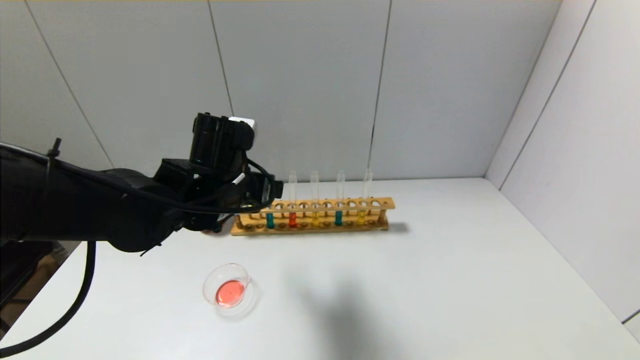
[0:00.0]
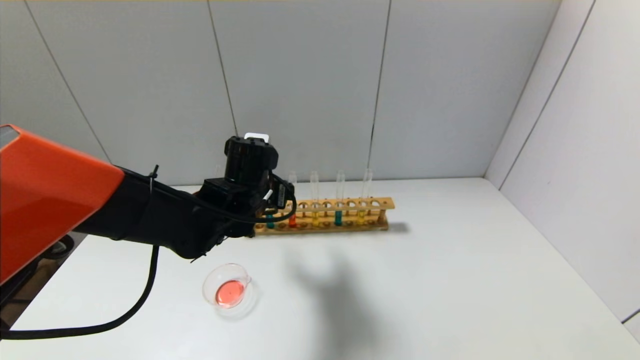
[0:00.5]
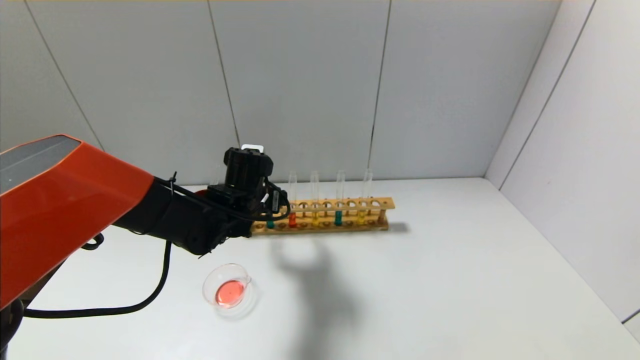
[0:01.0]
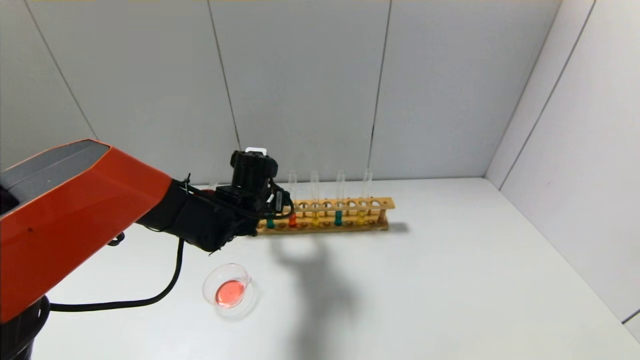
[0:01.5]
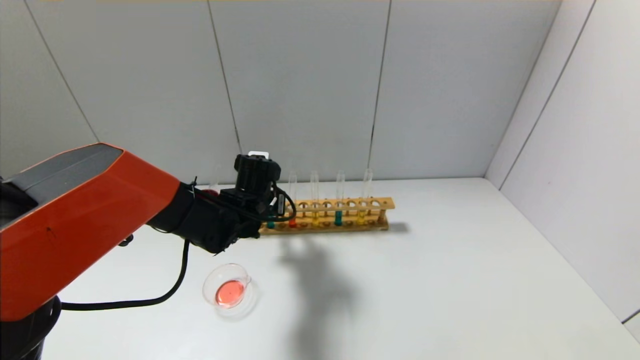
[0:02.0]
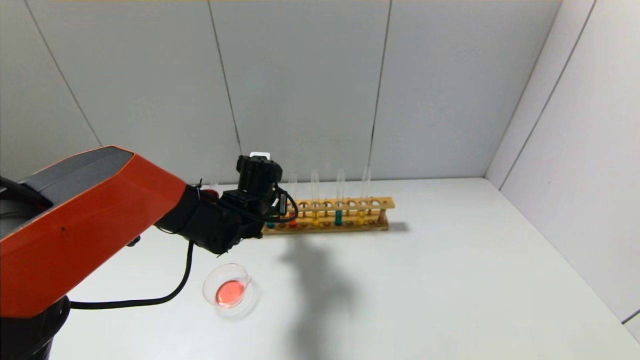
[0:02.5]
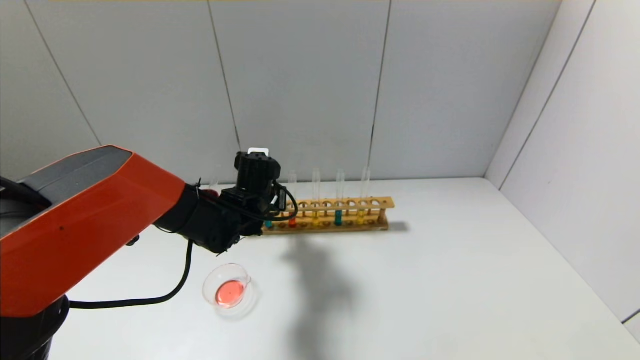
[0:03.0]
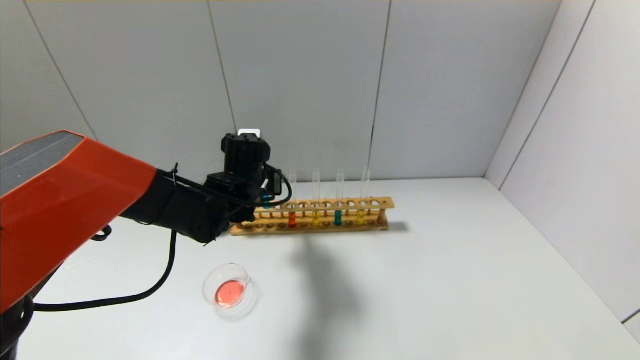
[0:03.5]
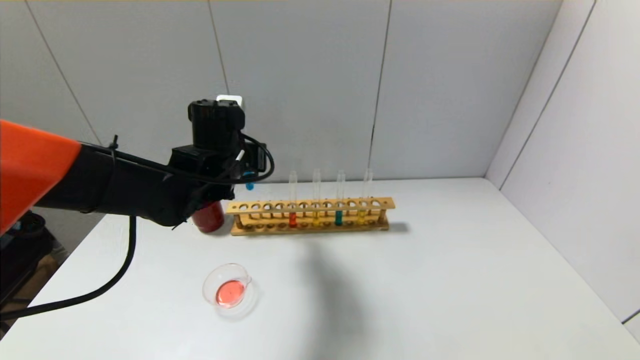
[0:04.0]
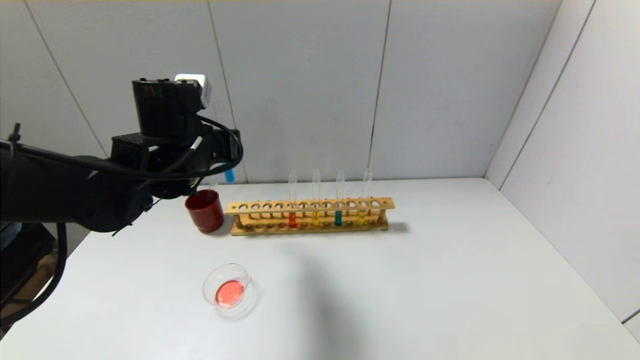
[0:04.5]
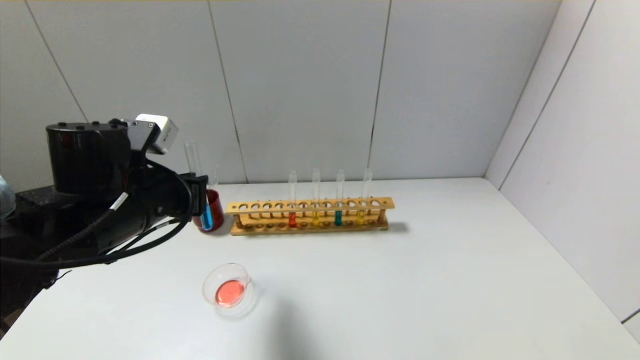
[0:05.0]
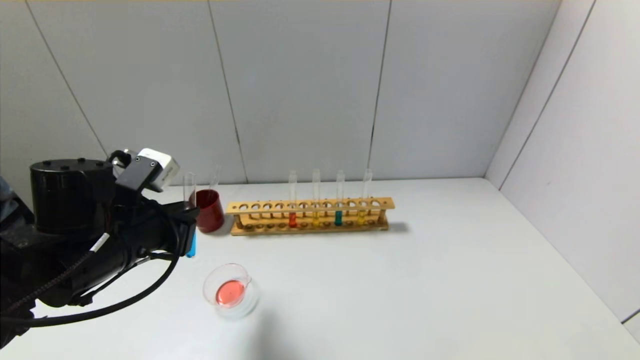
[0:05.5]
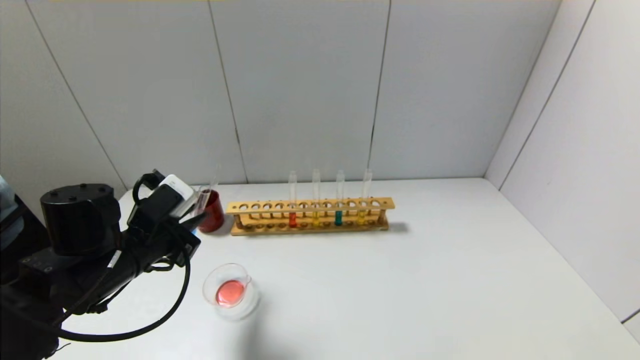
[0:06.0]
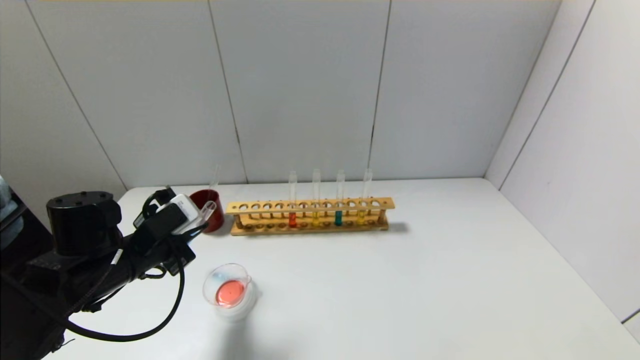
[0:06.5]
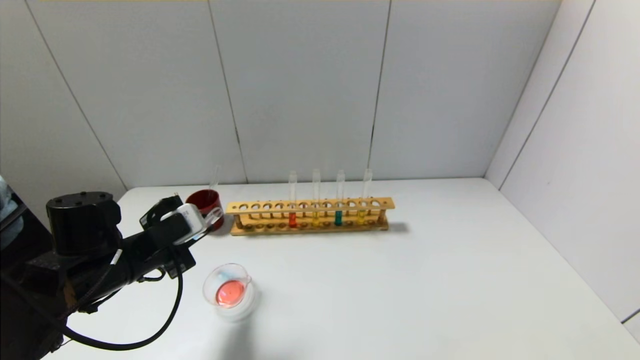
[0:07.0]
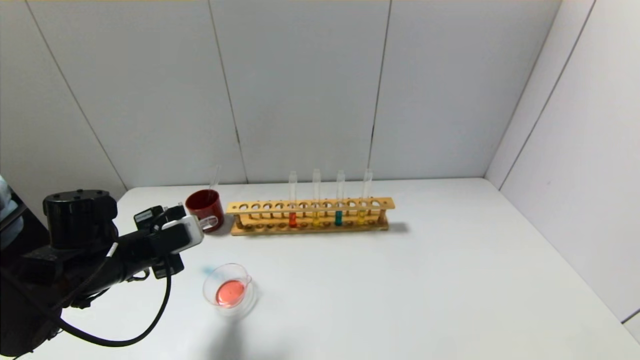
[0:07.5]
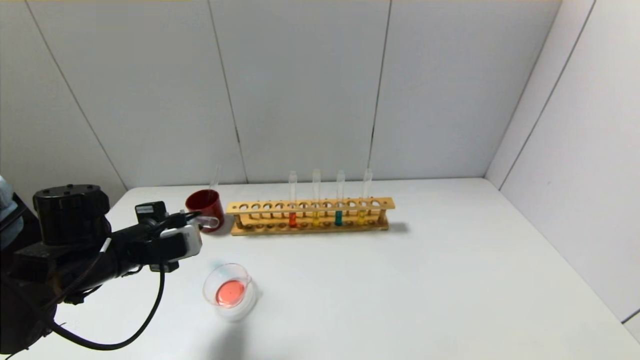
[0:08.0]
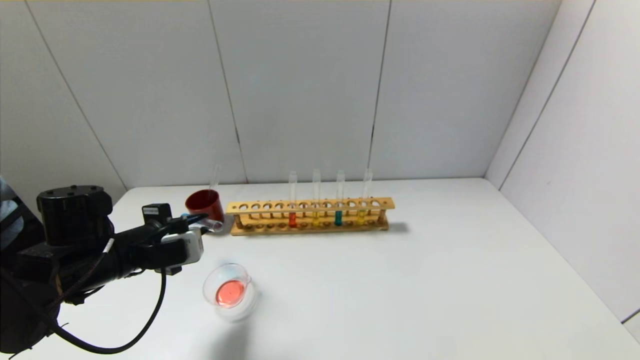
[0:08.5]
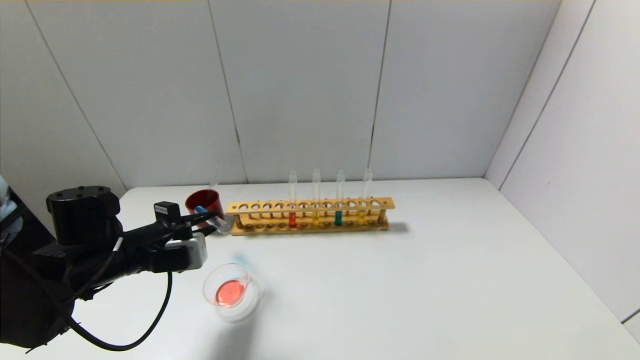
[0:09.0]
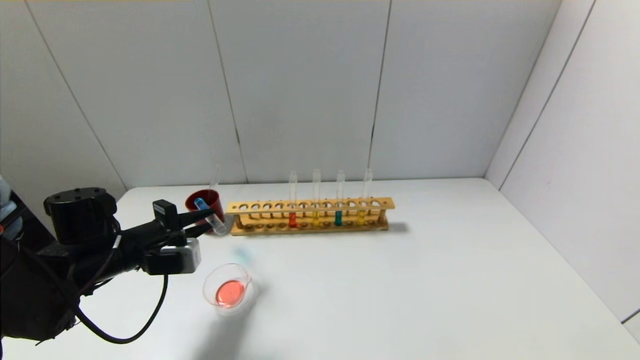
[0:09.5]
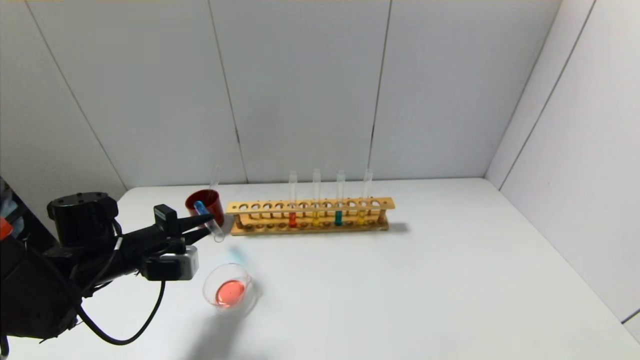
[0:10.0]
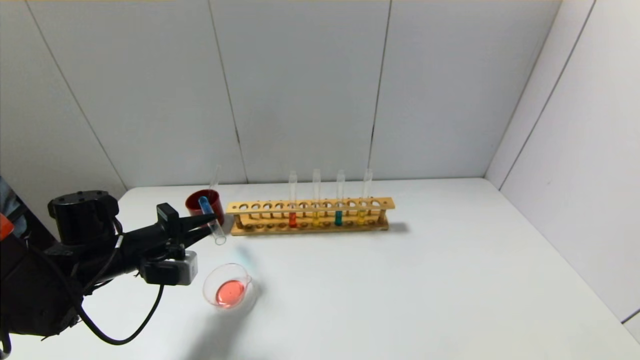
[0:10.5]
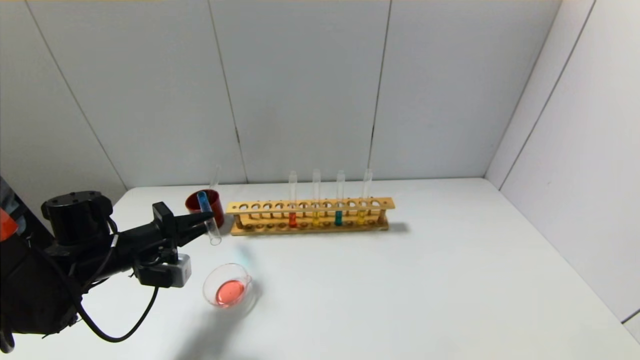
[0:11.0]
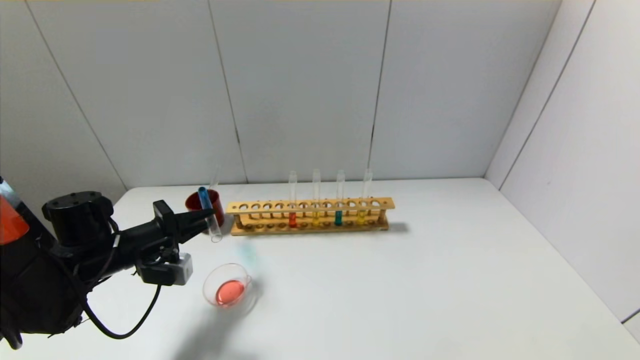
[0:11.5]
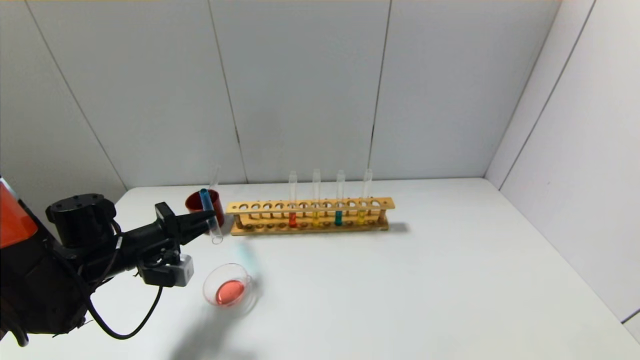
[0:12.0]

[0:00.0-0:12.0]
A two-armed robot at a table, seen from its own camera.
Step, 0:00.0 to 0:02.0: Grasp the blue reagent with the left gripper.
0:00.0 to 0:02.0: The left gripper is displaced downward and forward by roughly 10 cm, and closes its fingers.
0:02.0 to 0:04.0: The left gripper travels upward by roughly 10 cm.
0:04.0 to 0:06.0: The left gripper travels backward, to the left and downward by roughly 15 cm.
0:10.0 to 0:12.0: The grippers make only small movements.

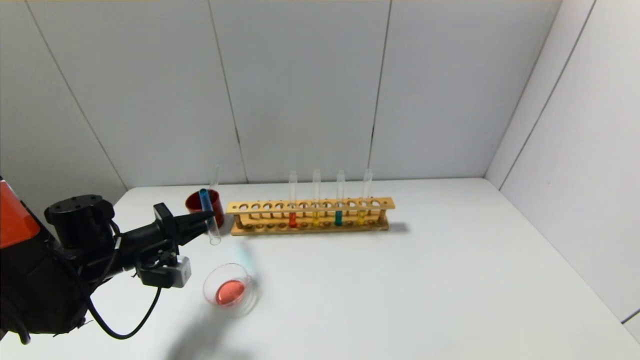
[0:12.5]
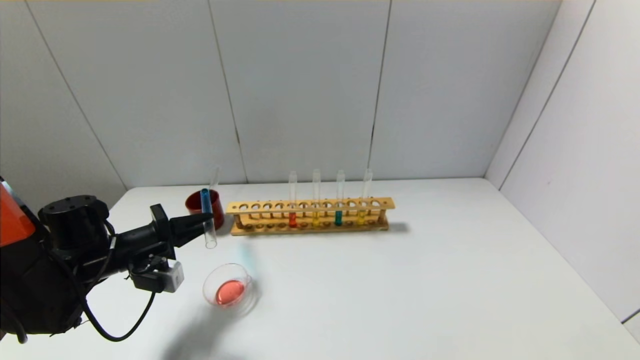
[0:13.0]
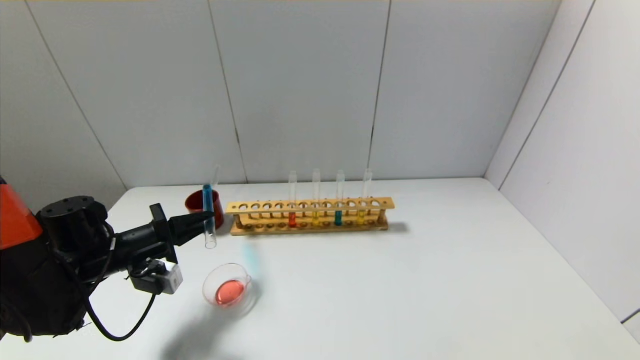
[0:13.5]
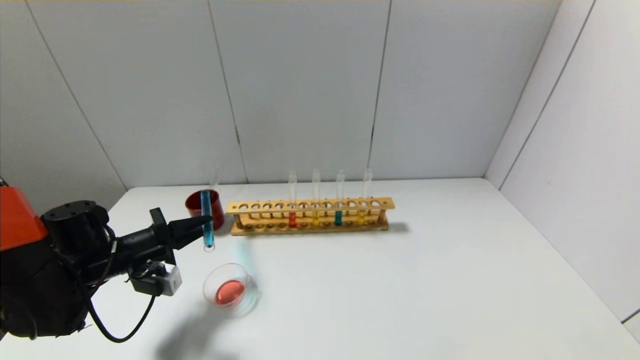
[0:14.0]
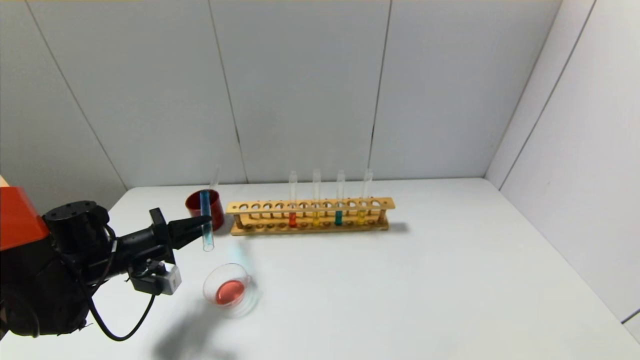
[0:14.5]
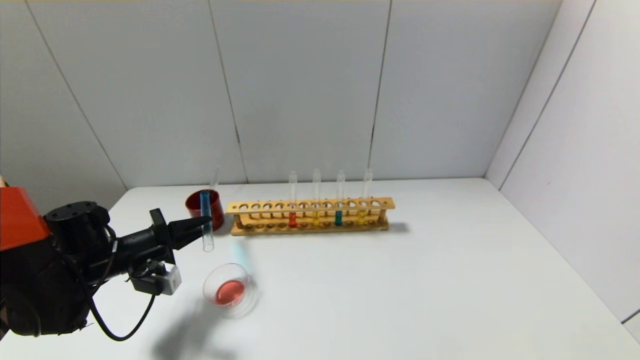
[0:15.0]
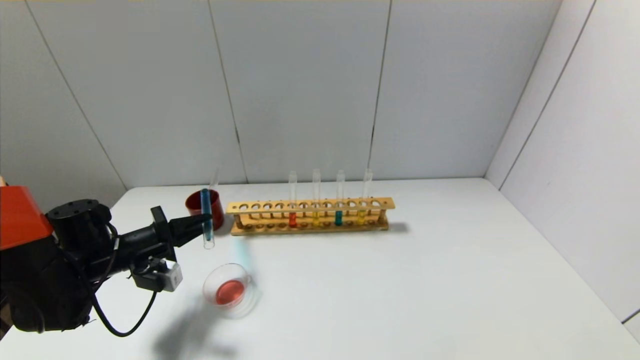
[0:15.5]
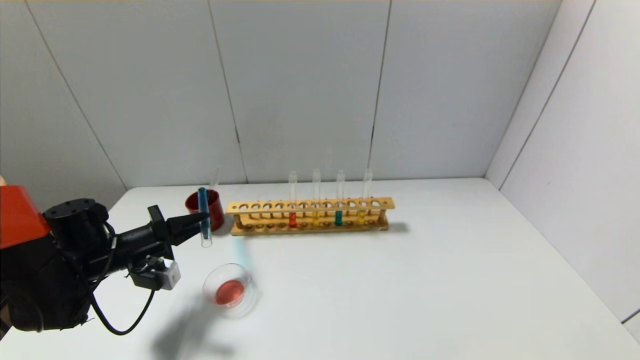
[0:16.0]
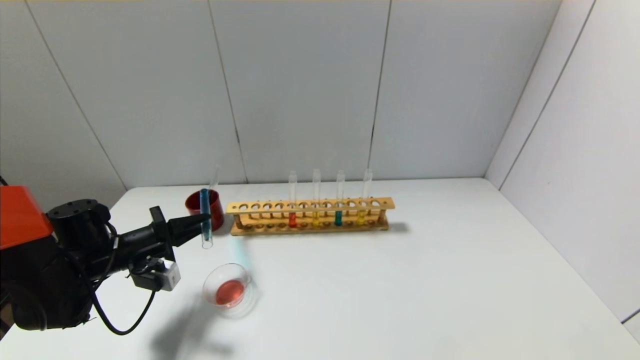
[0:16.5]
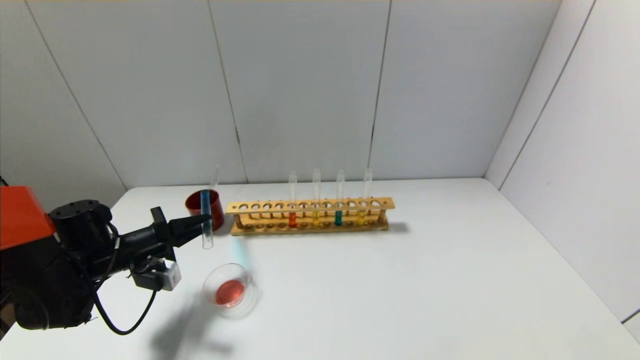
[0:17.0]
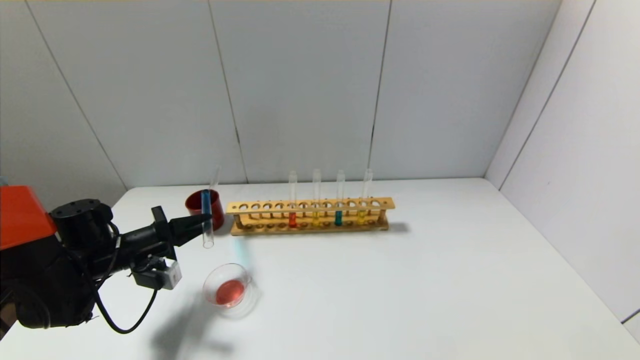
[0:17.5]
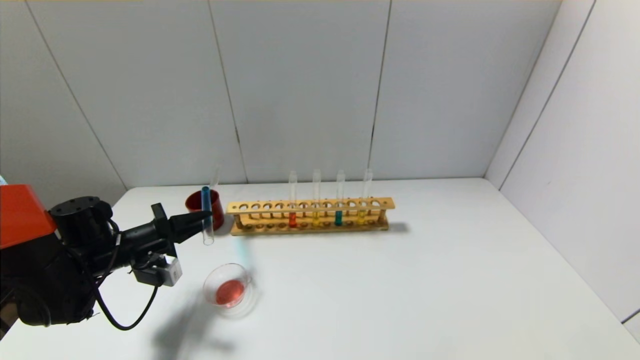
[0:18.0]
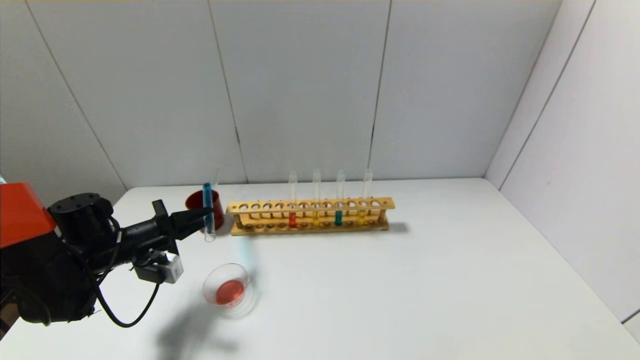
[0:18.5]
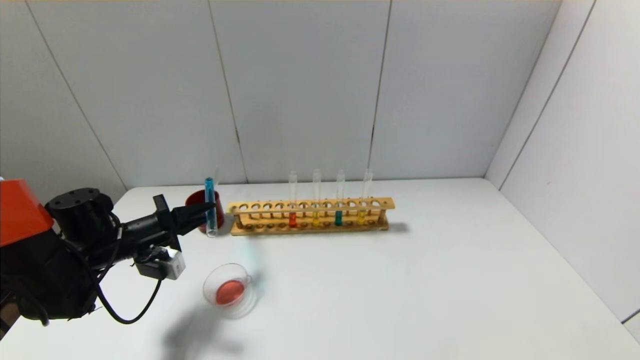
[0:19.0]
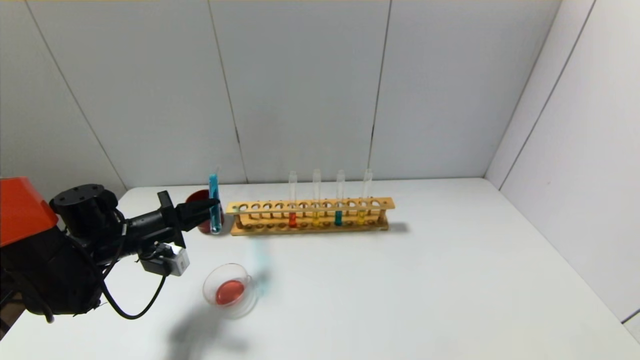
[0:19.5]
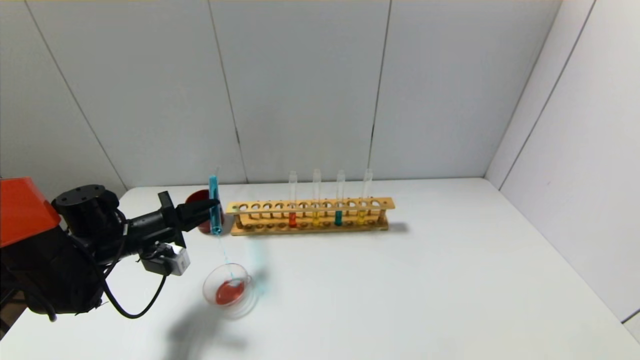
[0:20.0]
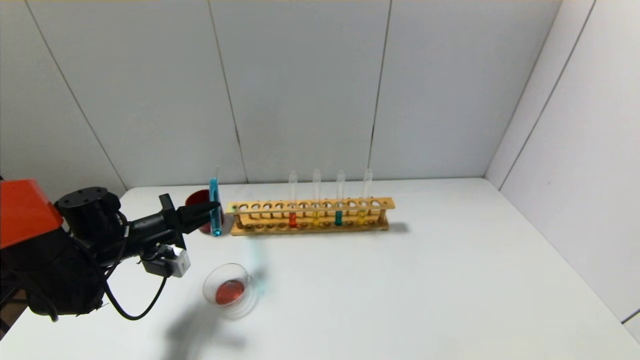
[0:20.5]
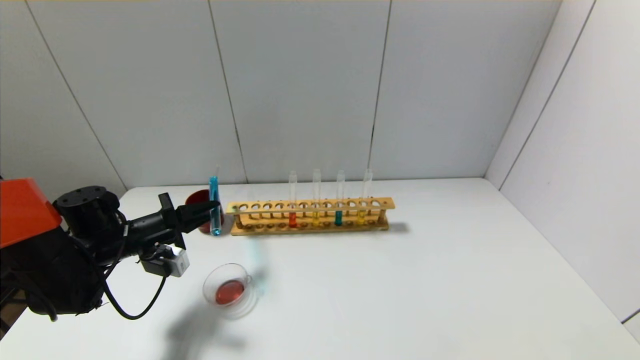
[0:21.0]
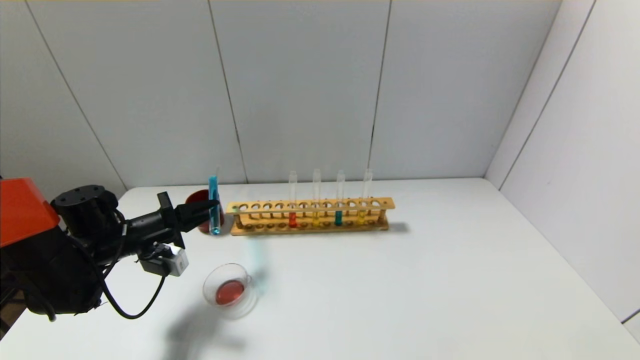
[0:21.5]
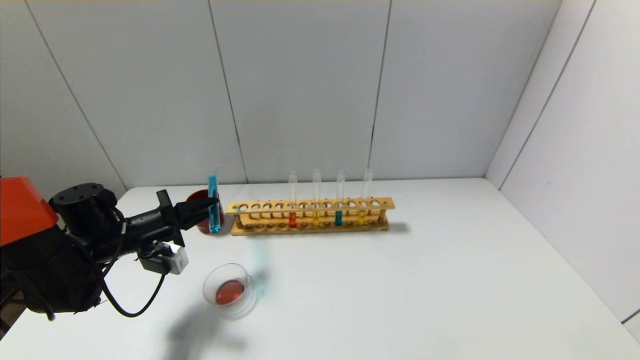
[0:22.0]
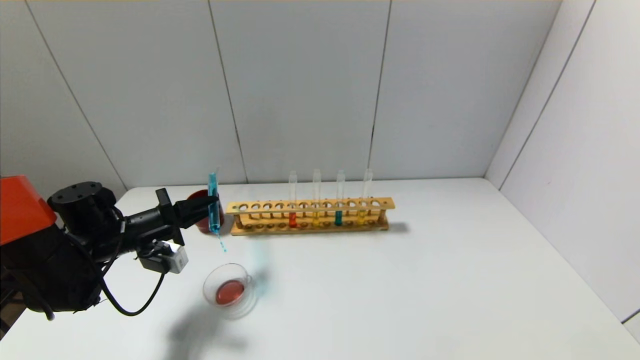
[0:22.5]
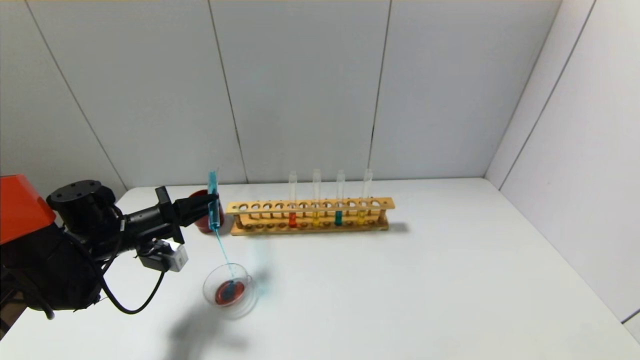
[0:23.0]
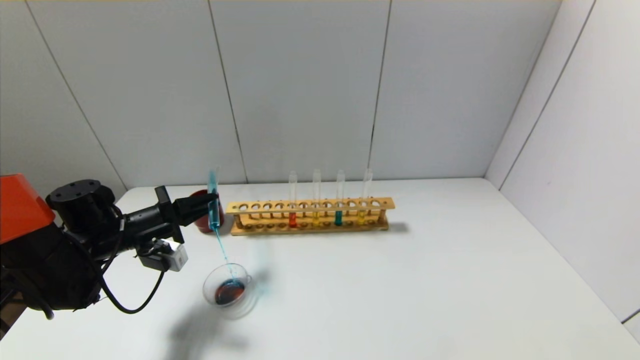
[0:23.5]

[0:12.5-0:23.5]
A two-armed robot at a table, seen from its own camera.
0:12.5 to 0:14.5: The grippers make only small movements.
0:14.5 to 0:16.0: The two grippers keep their place.
0:16.0 to 0:18.0: The two grippers keep their place.
0:18.0 to 0:20.0: The grippers make only small movements.
0:20.0 to 0:23.5: The two grippers keep their place.
